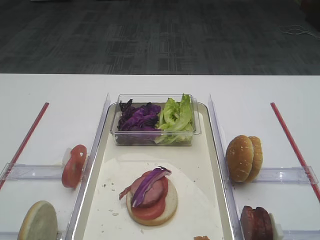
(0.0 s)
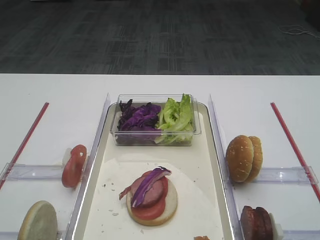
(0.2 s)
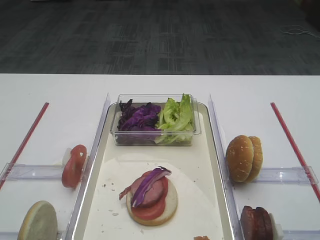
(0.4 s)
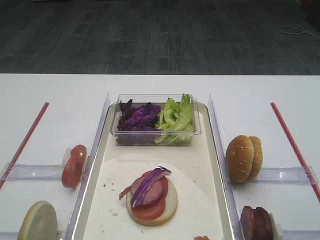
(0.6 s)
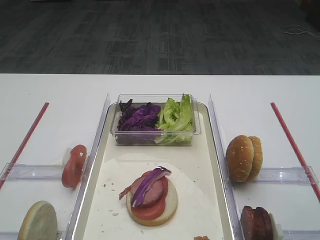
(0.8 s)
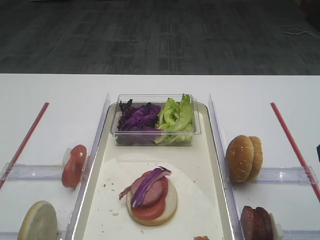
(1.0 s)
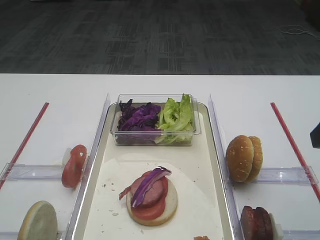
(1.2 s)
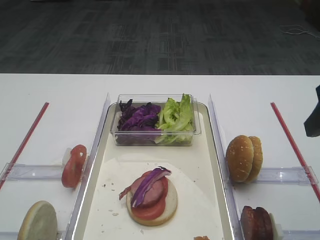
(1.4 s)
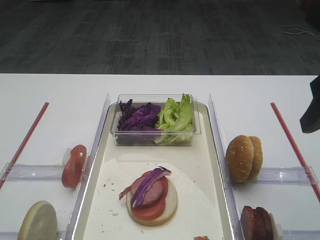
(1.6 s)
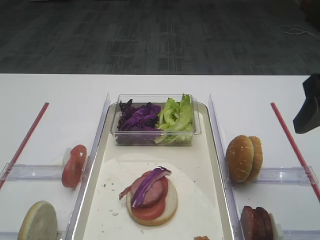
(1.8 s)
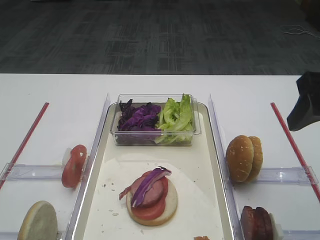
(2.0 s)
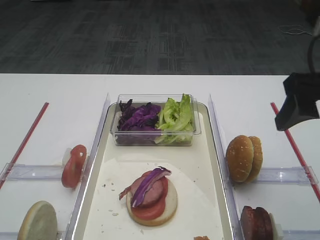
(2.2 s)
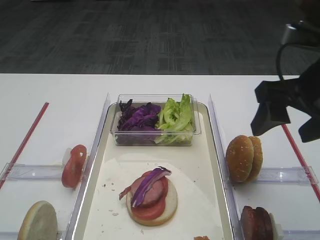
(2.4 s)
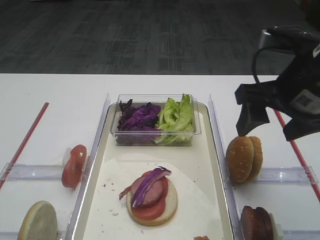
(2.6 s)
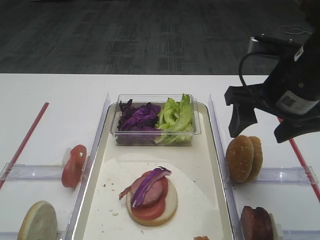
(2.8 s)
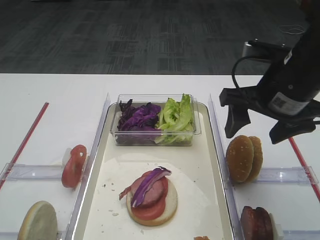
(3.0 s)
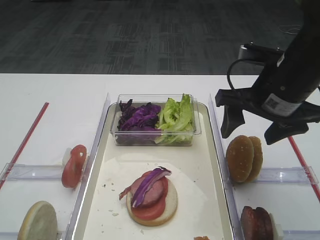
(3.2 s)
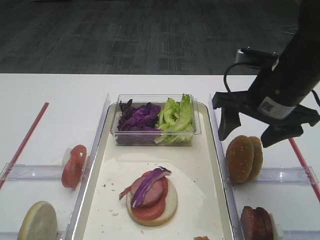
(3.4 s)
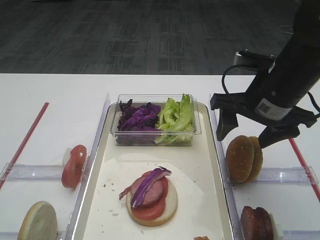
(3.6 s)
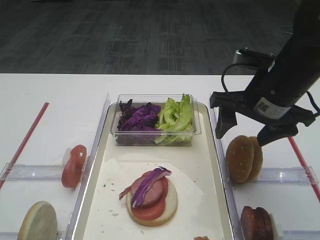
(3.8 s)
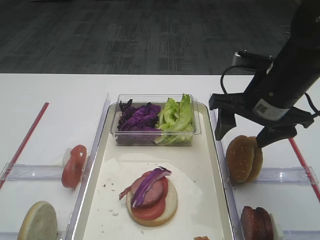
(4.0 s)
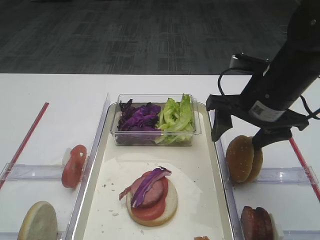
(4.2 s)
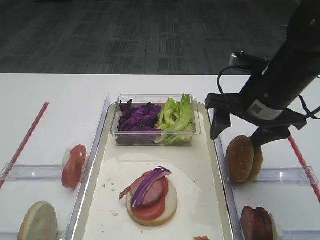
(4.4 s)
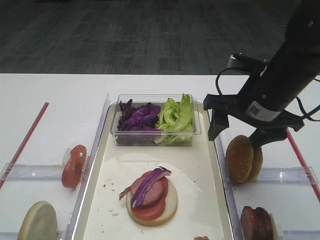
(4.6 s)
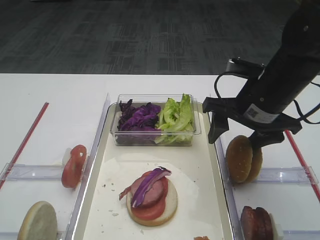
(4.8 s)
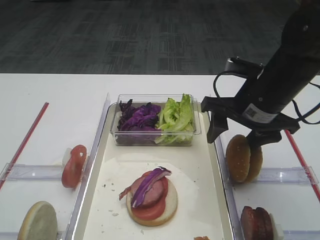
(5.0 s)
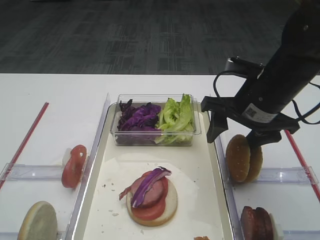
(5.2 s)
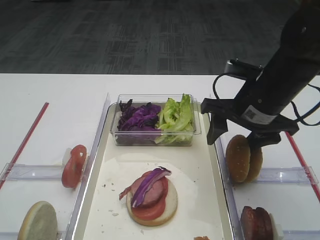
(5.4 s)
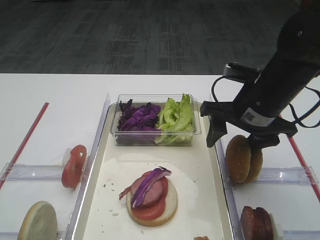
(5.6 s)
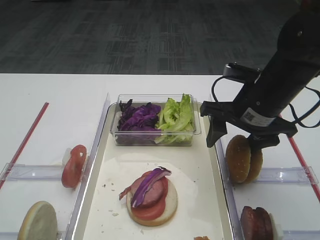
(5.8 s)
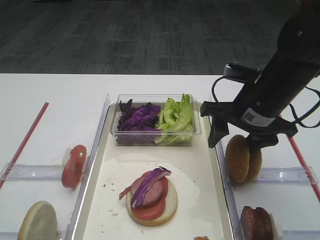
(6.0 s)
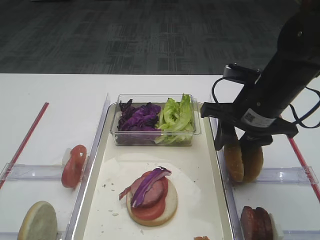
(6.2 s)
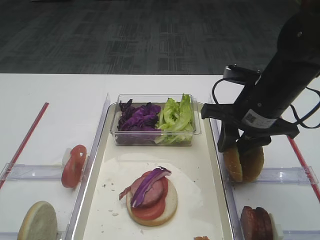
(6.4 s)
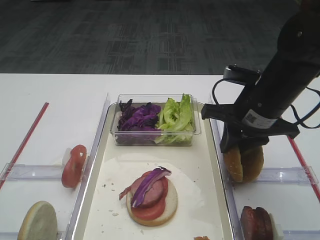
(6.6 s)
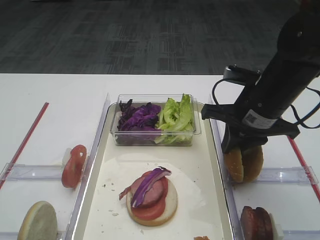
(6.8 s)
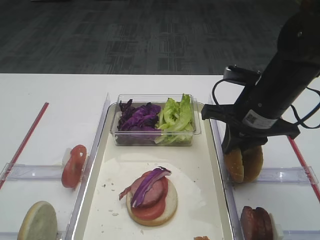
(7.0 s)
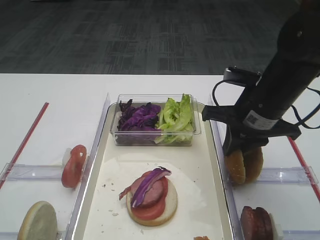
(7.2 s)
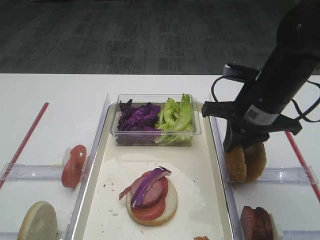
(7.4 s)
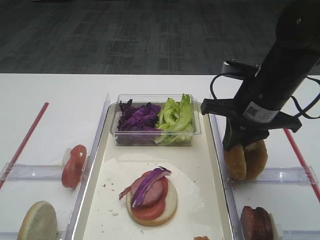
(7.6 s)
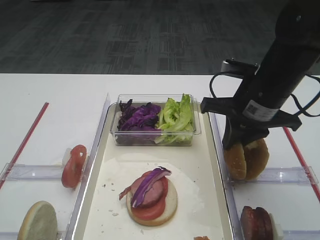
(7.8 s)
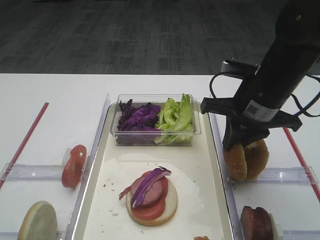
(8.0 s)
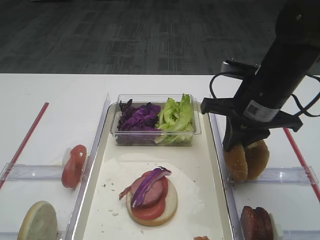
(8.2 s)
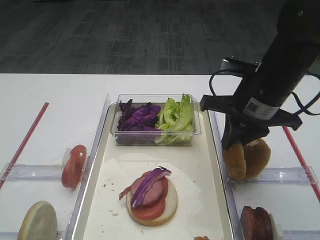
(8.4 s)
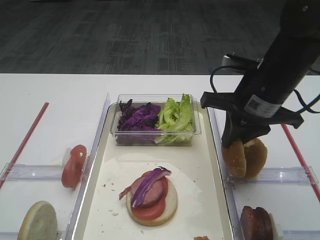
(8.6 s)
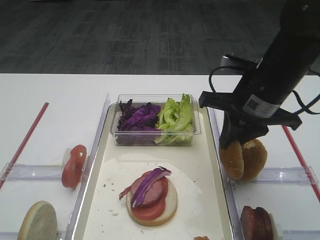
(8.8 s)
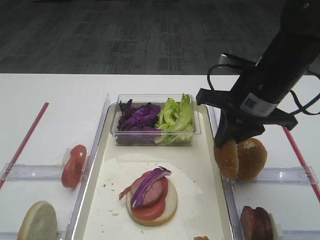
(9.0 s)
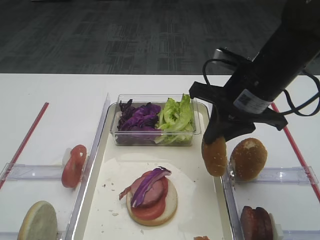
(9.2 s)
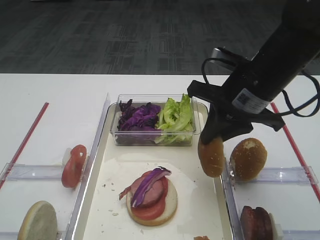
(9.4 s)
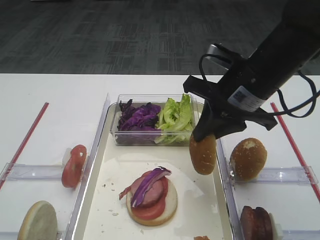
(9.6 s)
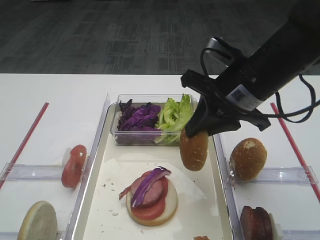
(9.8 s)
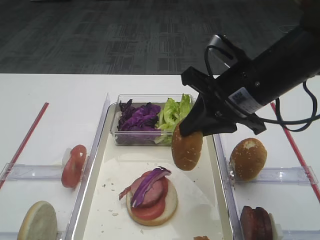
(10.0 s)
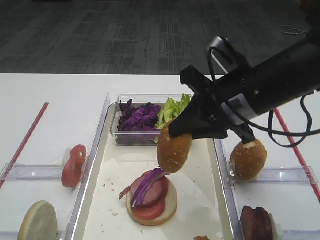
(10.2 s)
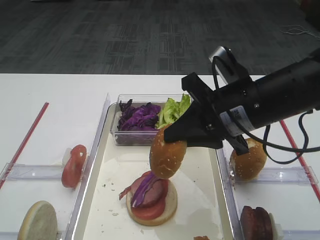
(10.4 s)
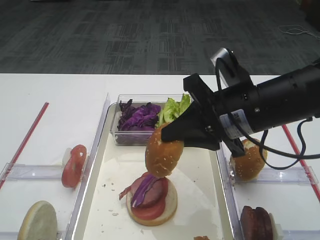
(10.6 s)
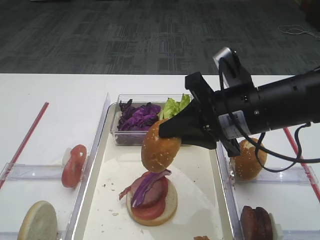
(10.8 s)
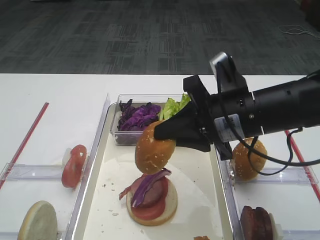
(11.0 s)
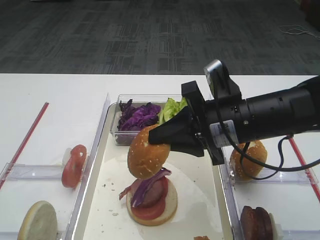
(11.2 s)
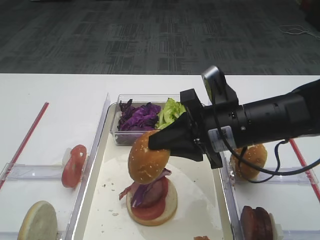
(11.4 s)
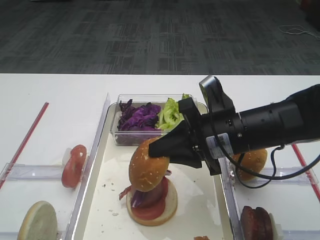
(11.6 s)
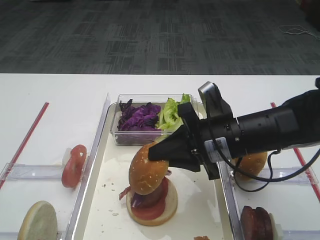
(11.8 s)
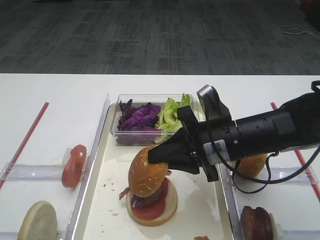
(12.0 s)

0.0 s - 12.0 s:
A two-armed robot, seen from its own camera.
Step, 0.0 s - 9.0 s: Pick up the hamburger lid with the right gripper.
1.6 s - 3.0 s: The right gripper shifts roughly 10 cm forward, to the left and downward.
3.0 s - 4.4 s: The grippers make only small movements.
4.4 s - 6.0 s: There are only small adjustments of the grippers.
6.0 s - 7.6 s: The right gripper closes up.
7.6 s - 9.0 s: The grippers make only small movements.
10.4 s - 12.0 s: The right gripper moves downward, about 10 cm.

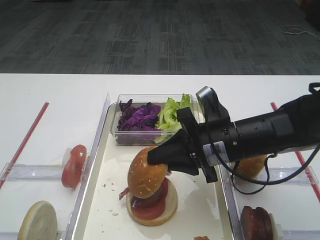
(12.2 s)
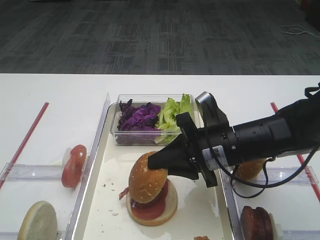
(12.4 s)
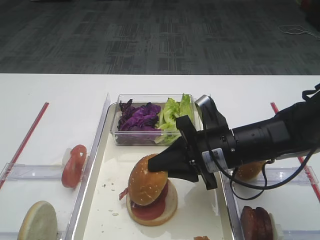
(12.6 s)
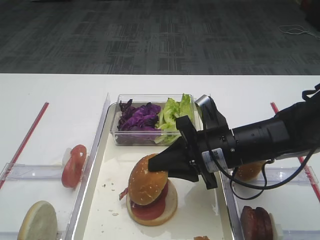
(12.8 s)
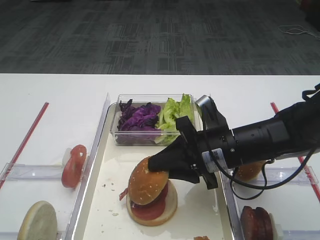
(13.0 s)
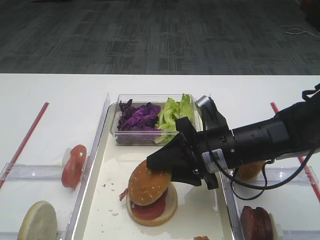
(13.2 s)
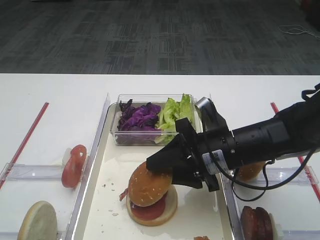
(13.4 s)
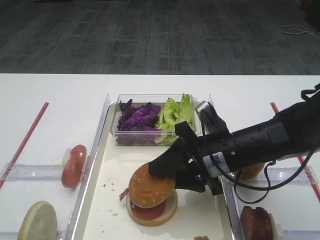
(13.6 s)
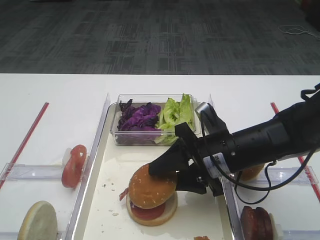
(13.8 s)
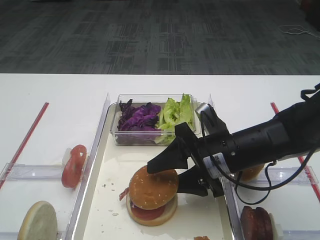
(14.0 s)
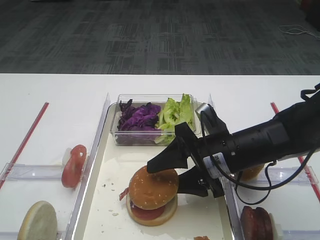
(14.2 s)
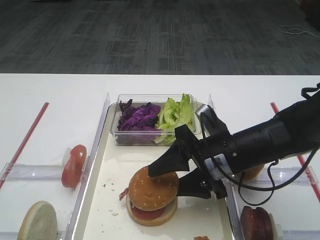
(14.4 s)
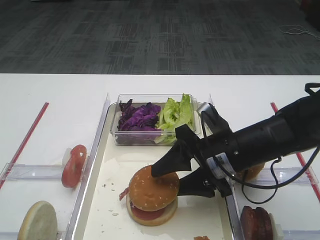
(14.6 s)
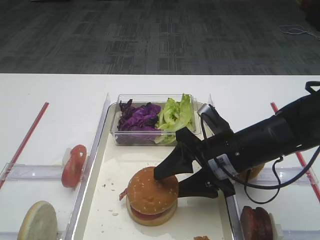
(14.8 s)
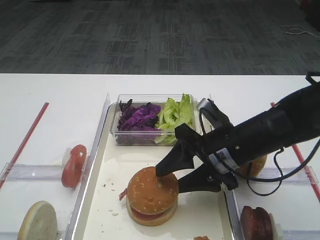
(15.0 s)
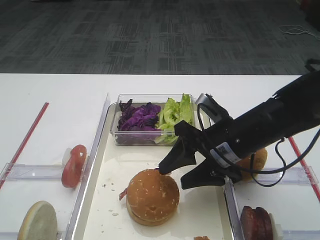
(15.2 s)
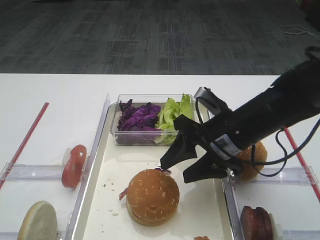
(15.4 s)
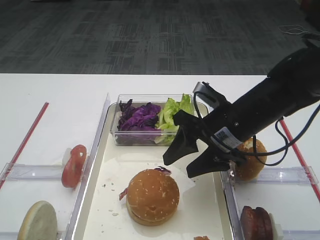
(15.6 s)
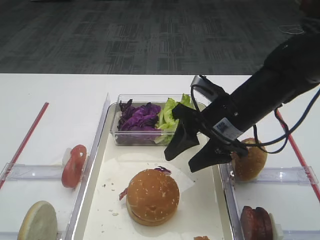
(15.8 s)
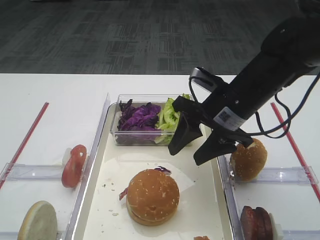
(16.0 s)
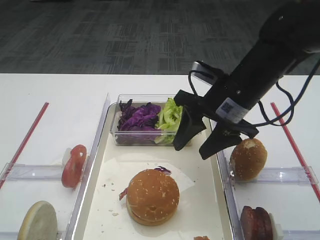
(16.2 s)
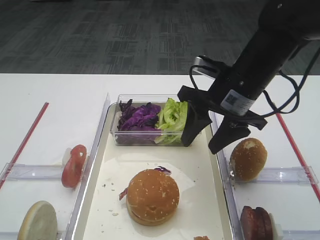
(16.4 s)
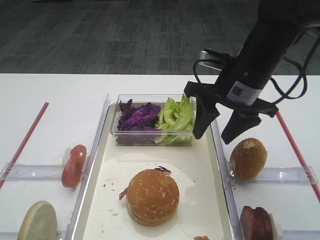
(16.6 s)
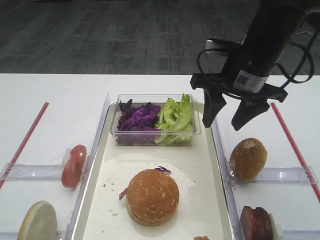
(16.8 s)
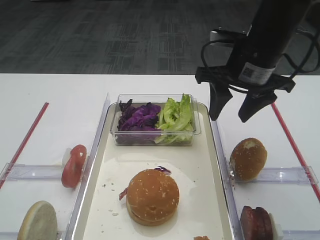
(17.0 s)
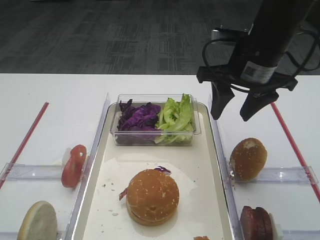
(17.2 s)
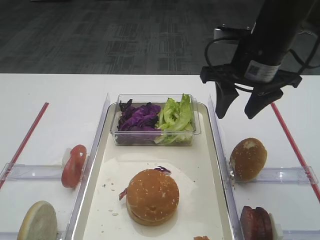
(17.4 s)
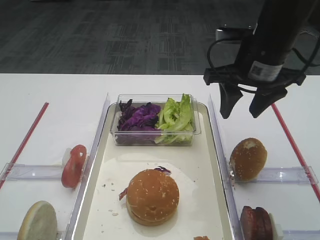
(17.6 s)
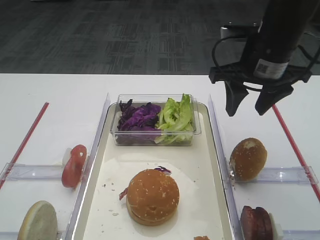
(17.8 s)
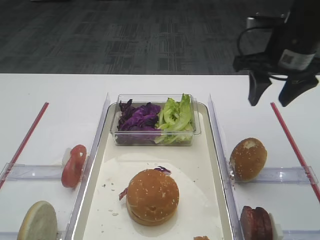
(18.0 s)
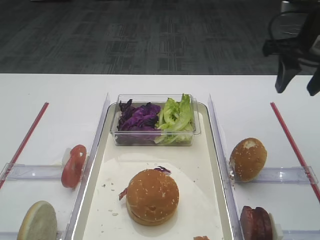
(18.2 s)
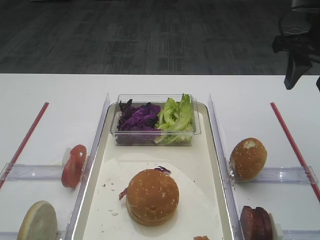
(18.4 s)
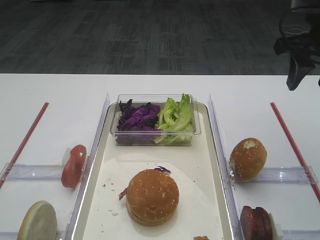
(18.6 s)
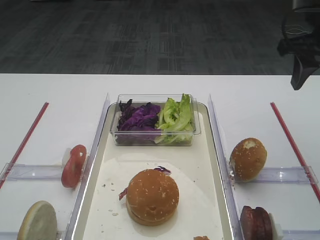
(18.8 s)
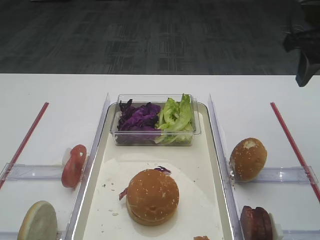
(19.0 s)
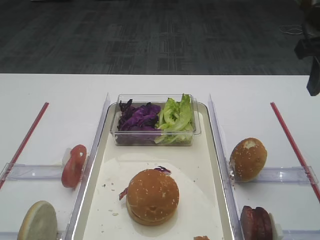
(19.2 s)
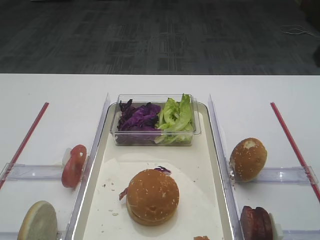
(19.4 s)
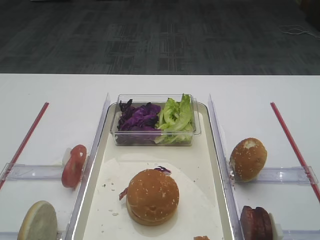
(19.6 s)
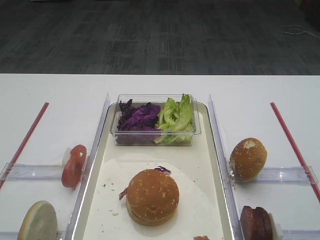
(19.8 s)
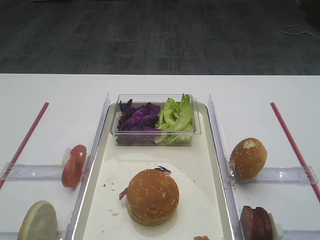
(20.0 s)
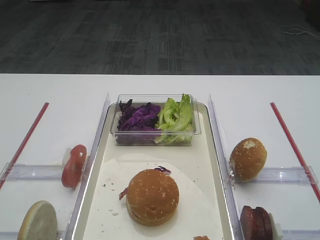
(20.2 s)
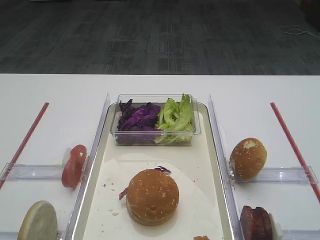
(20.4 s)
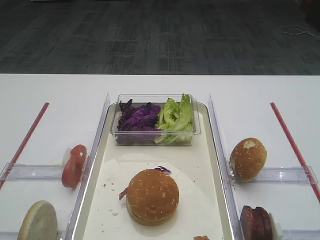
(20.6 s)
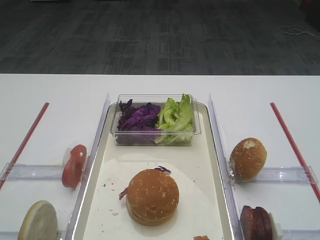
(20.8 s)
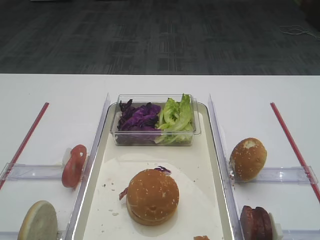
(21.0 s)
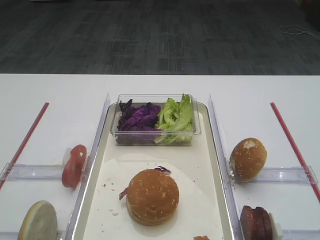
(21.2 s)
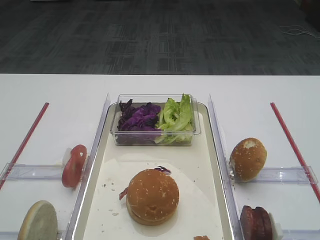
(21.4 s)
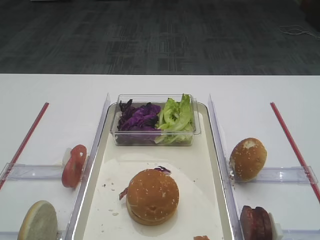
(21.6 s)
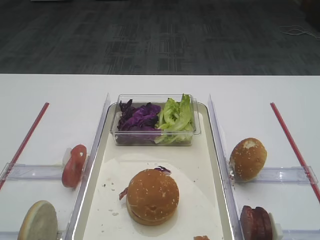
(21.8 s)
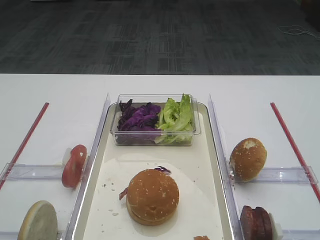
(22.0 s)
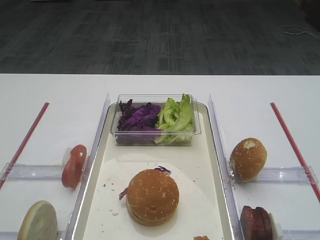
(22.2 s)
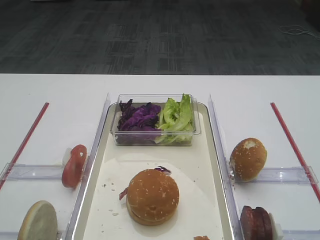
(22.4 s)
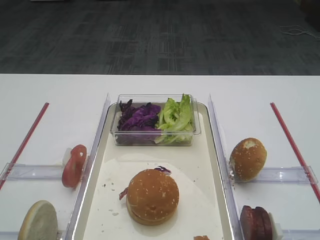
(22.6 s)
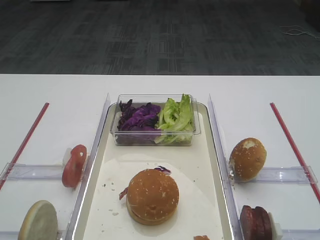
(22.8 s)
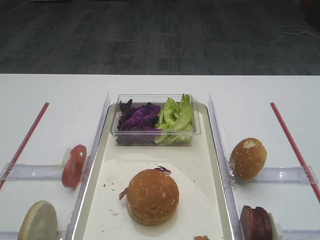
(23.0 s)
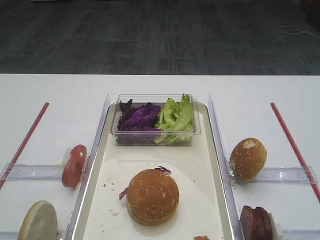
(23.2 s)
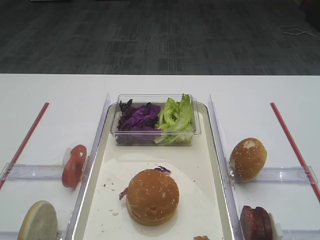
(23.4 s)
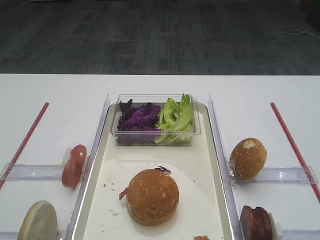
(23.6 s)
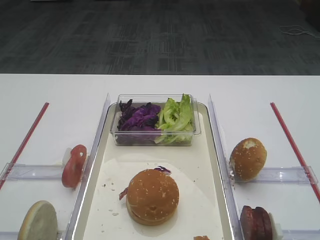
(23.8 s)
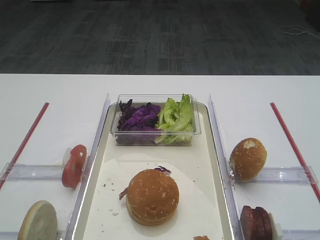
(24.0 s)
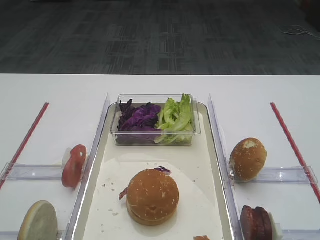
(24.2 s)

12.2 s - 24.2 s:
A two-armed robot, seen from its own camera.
Step, 12.2 s - 15.8 s: Place the hamburger lid on the purple cabbage with the right gripper.
12.2 s - 13.8 s: The right gripper opens.
13.8 s - 15.2 s: The grippers move only a little.
15.2 s - 16.6 s: The right gripper heads upward and forward, covering approximately 10 cm.
16.6 s - 18.2 s: The right gripper heads to the right and upward, covering roughly 15 cm.
18.2 s - 19.8 s: The right gripper is displaced backward by approximately 20 cm.
22.6 s - 24.2 s: Both grippers stay put.
